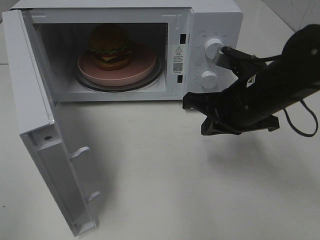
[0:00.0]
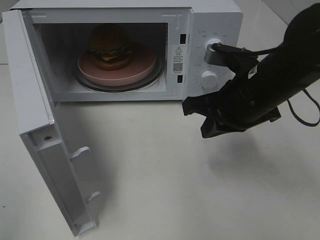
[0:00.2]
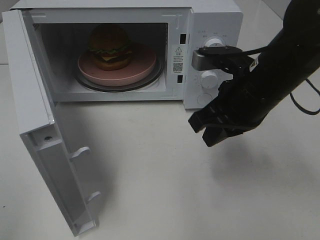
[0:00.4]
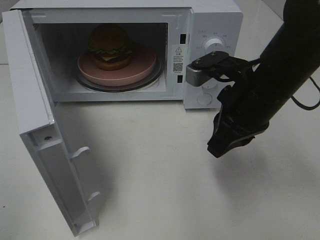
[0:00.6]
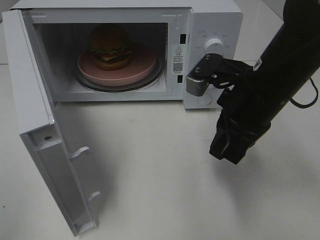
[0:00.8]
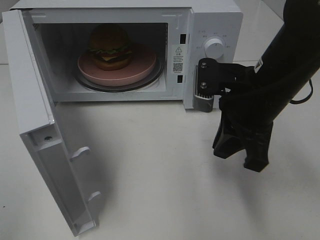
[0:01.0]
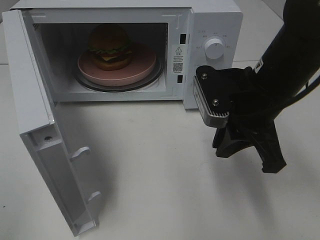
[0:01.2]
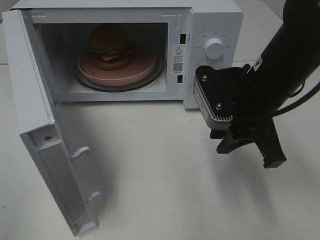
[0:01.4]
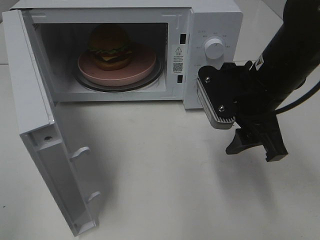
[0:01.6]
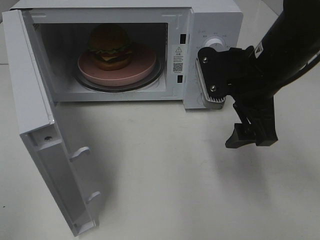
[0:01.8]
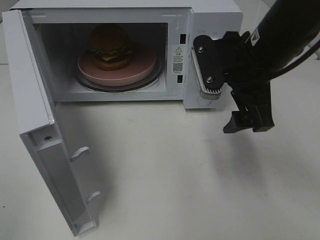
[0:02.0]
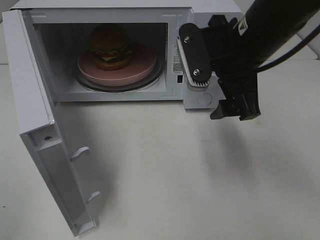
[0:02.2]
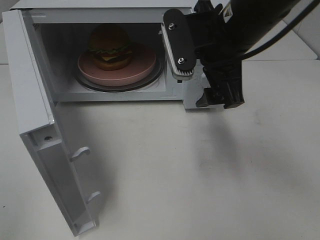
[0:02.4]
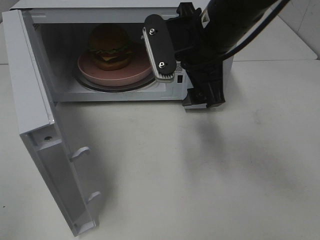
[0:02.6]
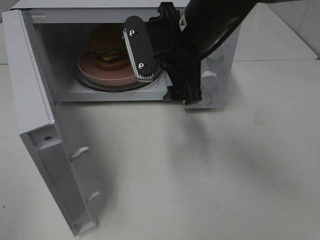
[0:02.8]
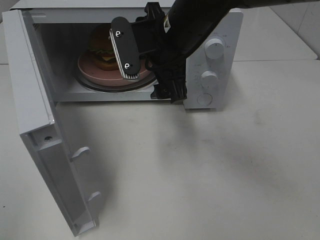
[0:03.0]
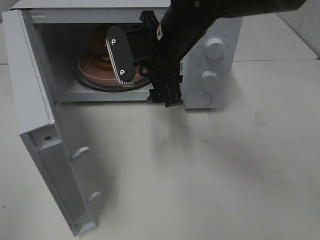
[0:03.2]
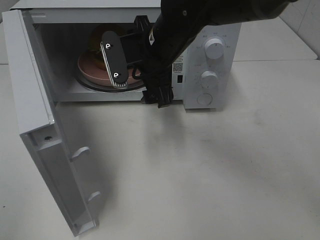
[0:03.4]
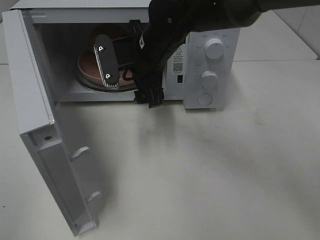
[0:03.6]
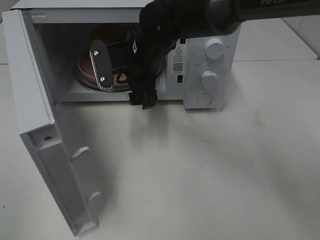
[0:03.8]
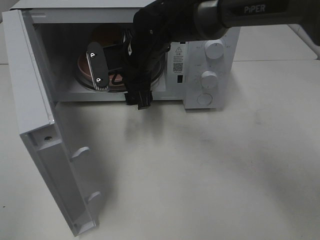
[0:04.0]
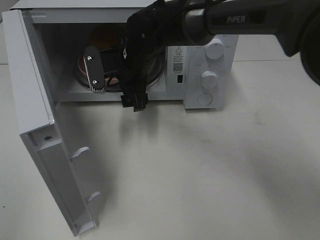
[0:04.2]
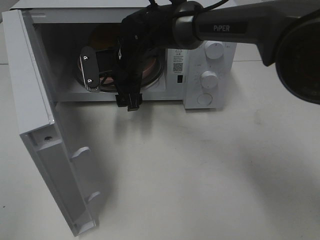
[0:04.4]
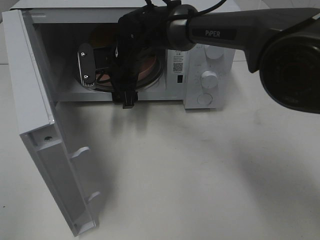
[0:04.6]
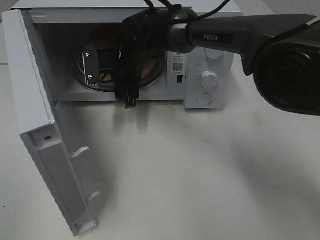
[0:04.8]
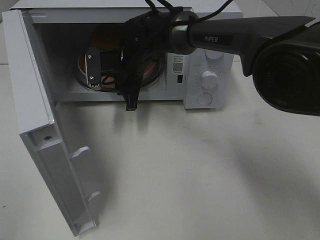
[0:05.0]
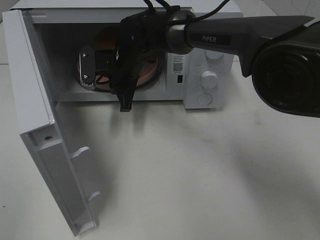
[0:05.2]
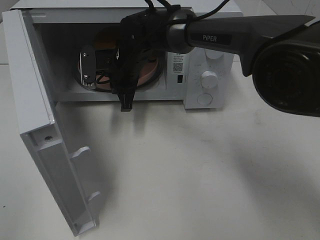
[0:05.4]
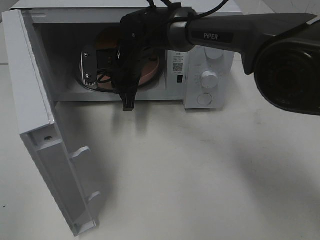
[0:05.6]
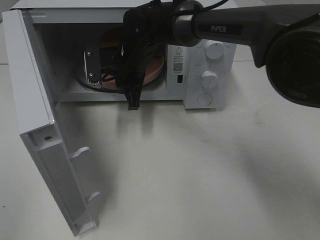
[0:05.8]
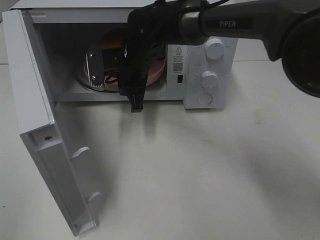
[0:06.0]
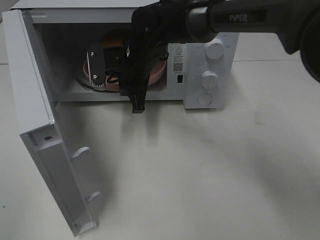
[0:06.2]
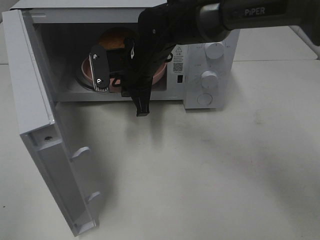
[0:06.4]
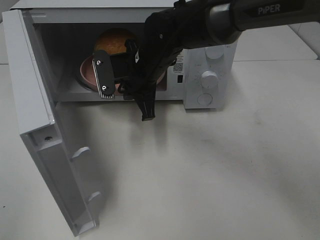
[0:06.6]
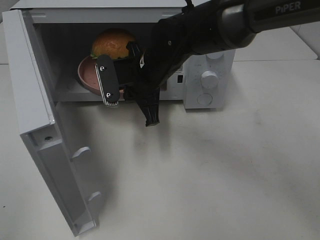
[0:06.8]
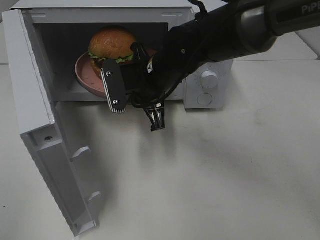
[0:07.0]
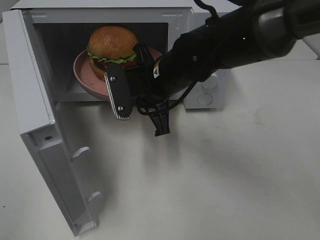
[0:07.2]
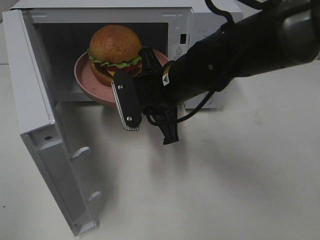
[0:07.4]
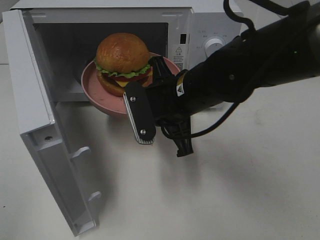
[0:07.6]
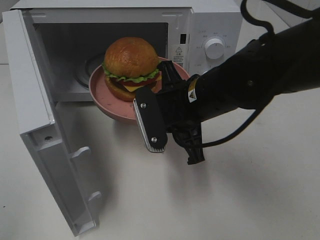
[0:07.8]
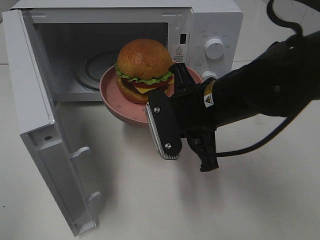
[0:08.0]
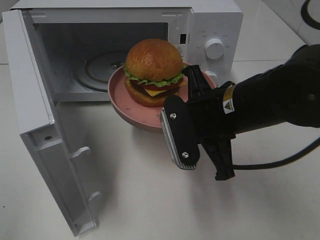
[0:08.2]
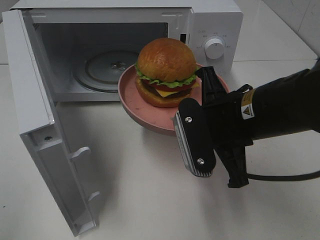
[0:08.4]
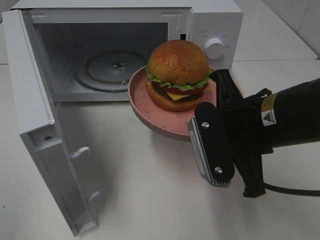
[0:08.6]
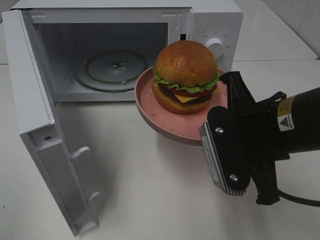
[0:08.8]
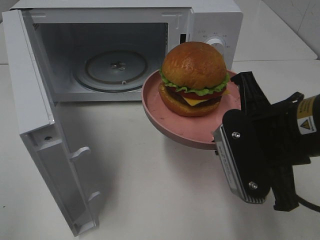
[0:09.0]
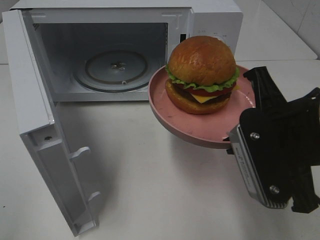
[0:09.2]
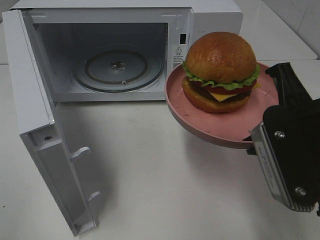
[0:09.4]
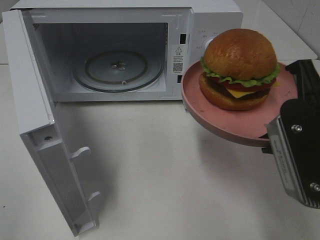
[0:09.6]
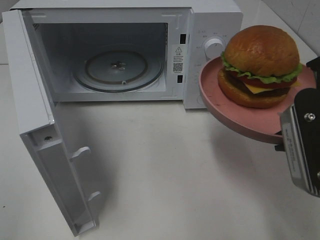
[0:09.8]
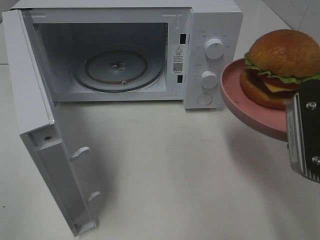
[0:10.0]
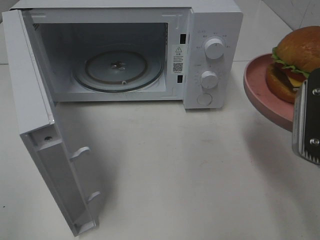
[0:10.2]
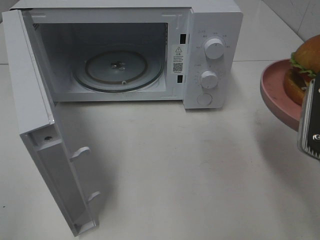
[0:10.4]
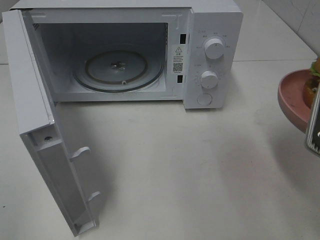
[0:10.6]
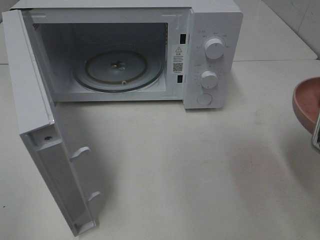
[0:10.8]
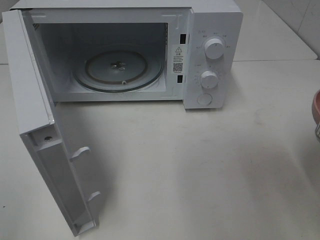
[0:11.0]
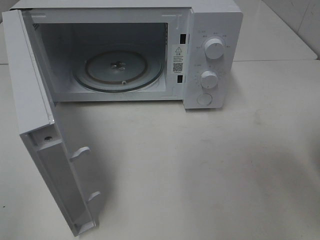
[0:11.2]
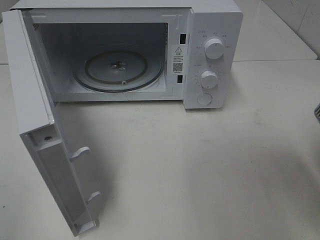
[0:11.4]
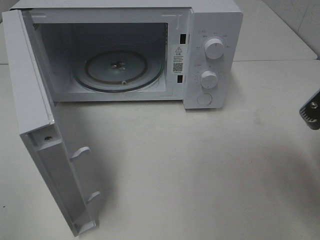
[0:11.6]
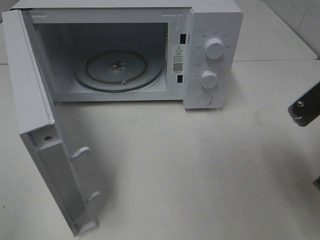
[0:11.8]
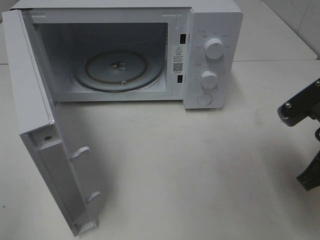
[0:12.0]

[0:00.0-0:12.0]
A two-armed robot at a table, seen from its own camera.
Task of the whole recording: Heat the burger.
Step, 0:00.0 to 0:05.0: Right hand: grab the plate with the hamburger.
0:00.0 to 0:01.6: The right gripper opens.
0:01.6 to 0:03.0: The right gripper goes about 15 cm to the left and forward.
0:03.0 to 0:04.4: The right gripper shifts about 15 cm forward, downward and to the left.
0:04.4 to 0:06.0: The right gripper closes up.
0:06.0 to 0:07.6: The right gripper travels backward and to the right by about 15 cm.
0:07.6 to 0:09.0: The right gripper goes about 15 cm backward and to the right.
0:09.0 to 0:10.4: The right gripper travels to the right by roughly 5 cm.
0:10.4 to 0:12.0: The right gripper is displaced downward by some 5 cm.

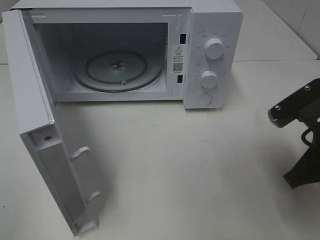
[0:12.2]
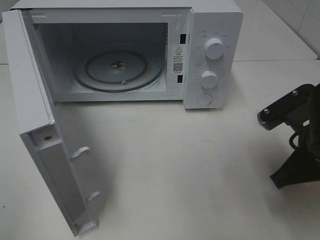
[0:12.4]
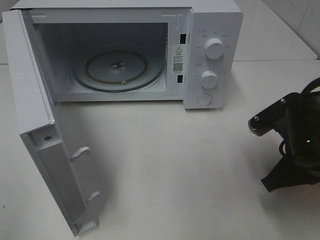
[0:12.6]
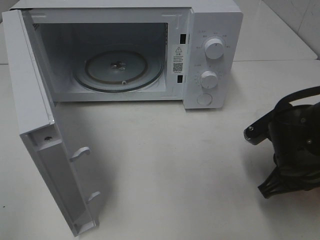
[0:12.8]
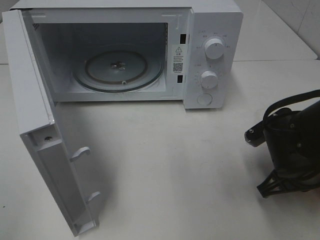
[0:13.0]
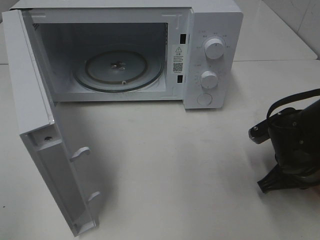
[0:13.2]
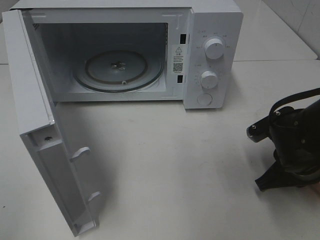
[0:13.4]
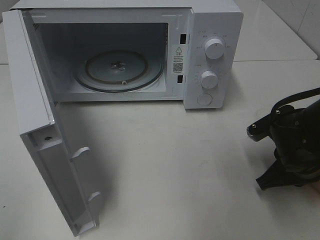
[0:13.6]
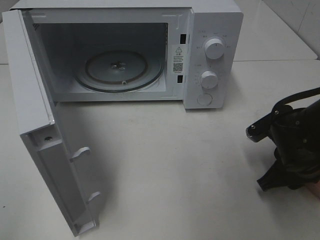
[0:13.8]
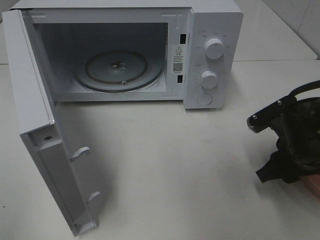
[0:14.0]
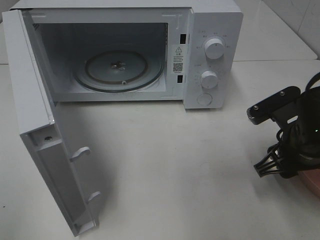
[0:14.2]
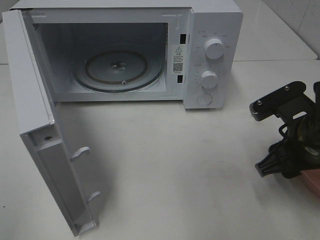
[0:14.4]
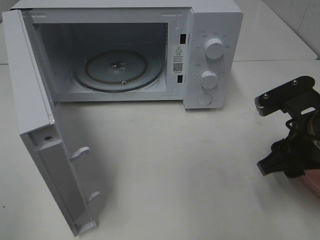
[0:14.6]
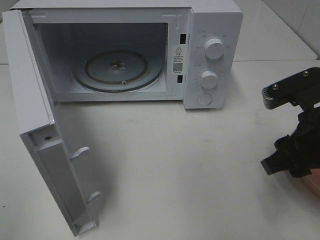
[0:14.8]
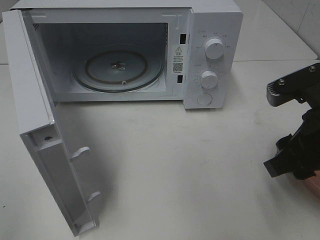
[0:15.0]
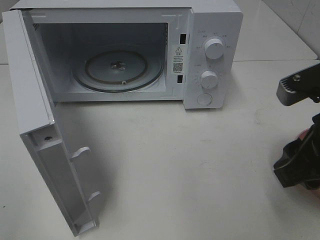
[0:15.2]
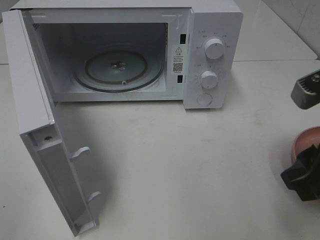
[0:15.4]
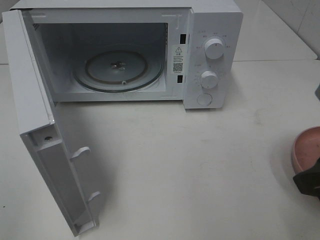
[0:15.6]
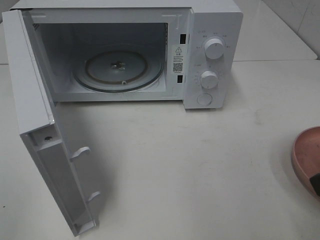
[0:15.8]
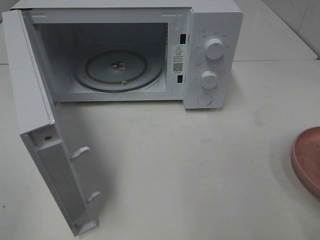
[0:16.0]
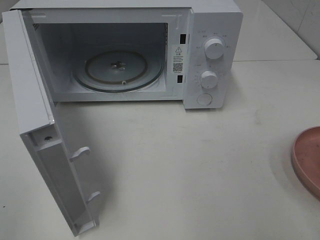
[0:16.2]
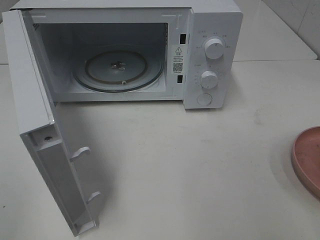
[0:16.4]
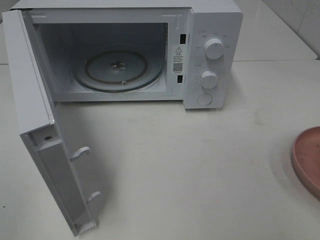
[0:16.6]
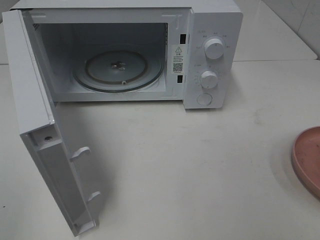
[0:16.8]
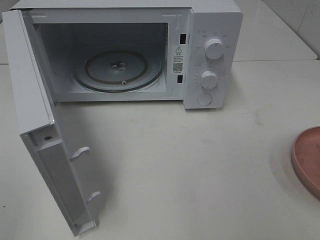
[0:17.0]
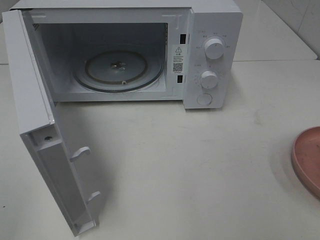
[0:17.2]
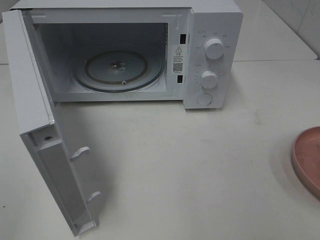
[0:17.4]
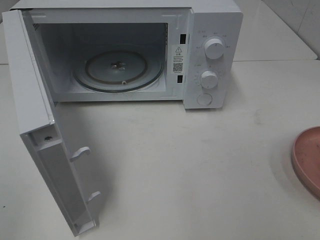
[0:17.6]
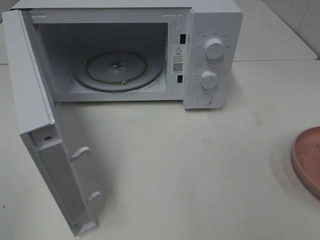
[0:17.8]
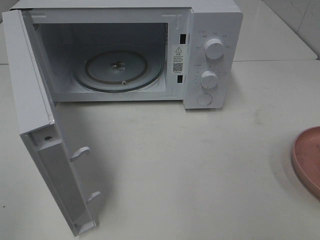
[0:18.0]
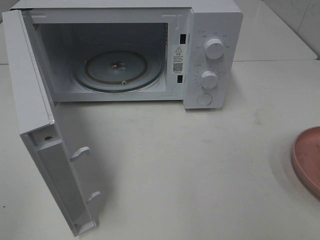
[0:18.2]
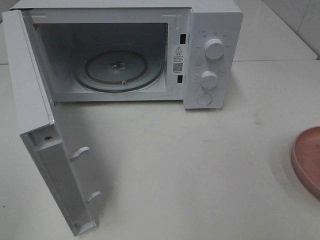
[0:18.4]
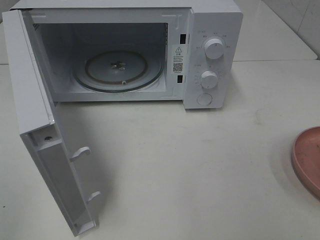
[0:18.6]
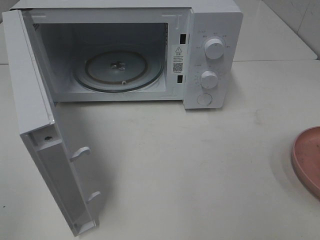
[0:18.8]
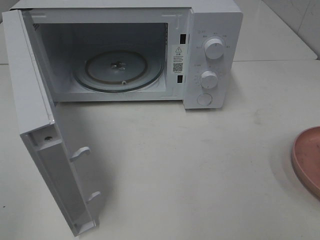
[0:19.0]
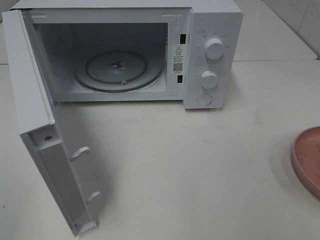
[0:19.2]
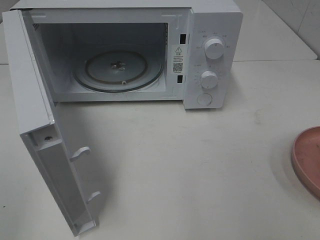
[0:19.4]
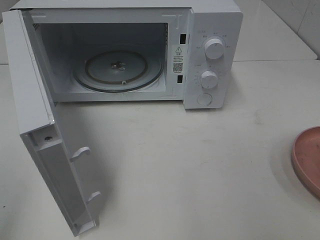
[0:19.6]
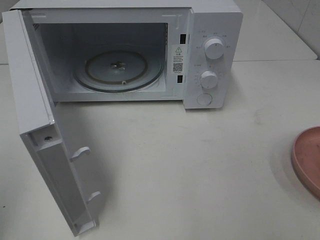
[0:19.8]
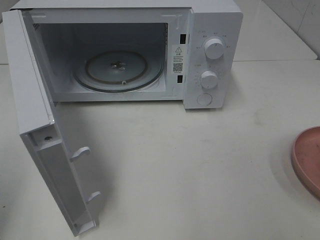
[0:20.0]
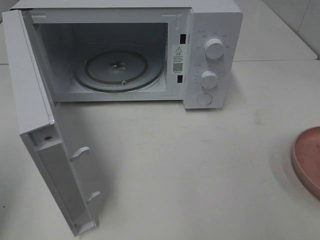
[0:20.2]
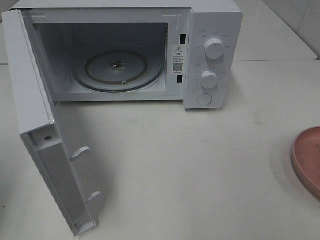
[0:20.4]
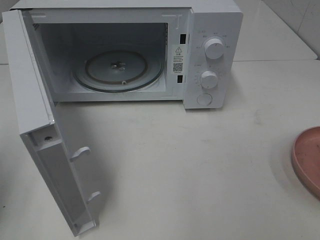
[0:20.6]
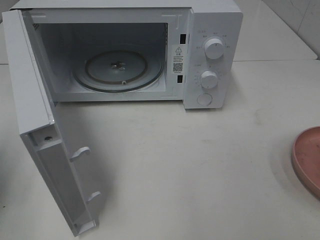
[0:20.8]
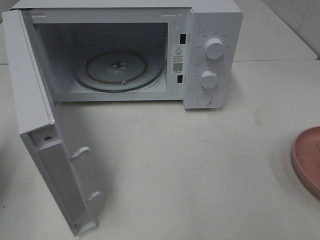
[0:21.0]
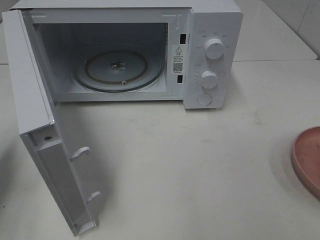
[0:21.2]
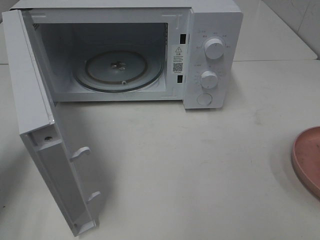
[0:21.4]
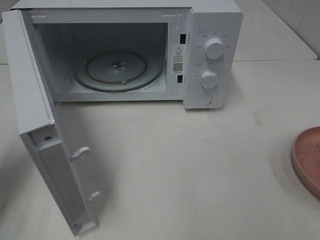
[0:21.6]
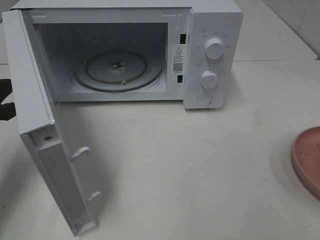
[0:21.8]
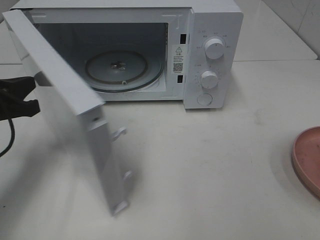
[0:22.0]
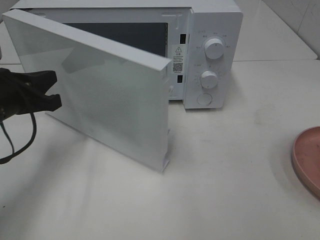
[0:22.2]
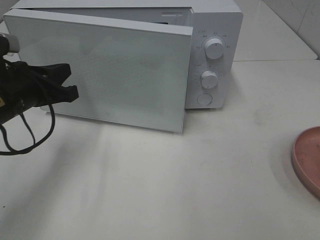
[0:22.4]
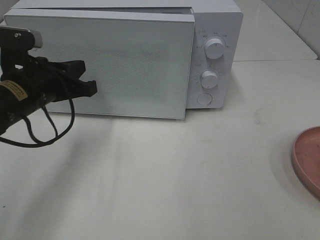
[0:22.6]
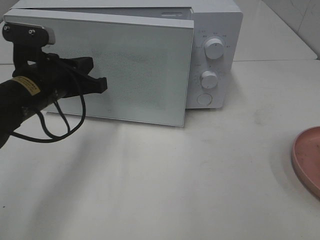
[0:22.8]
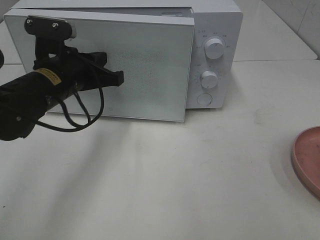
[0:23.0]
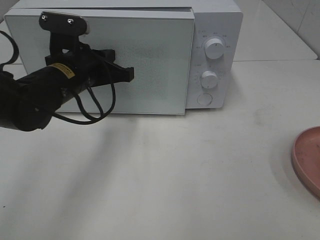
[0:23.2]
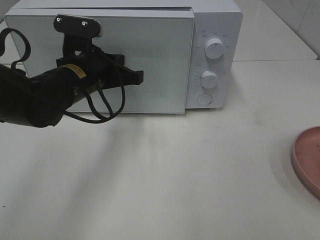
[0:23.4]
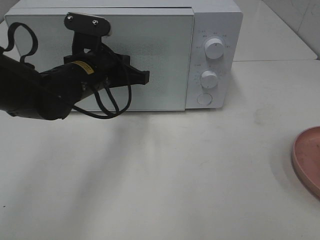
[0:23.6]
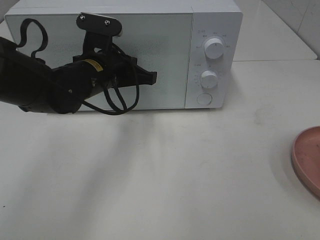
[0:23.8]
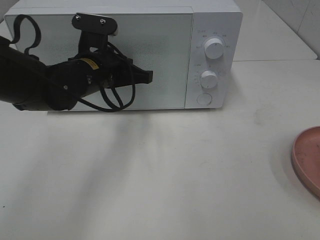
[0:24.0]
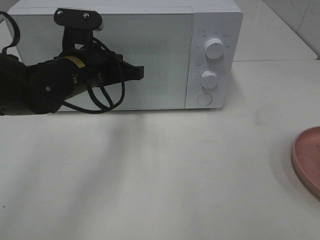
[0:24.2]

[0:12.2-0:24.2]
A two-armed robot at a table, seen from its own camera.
Task of the whole recording: Heat the burger.
0:12.2 to 0:13.8: The right gripper travels downward by some 10 cm, and opens.
0:13.8 to 0:15.2: The right gripper goes roughly 15 cm upward and backward.
0:15.2 to 0:16.6: The right gripper heads backward, to the right and upward, covering approximately 15 cm.
0:19.8 to 0:21.2: The left gripper is displaced forward and downward by some 20 cm.
0:21.2 to 0:22.6: The left gripper goes about 15 cm to the right and forward.
0:22.6 to 0:24.2: The left gripper moves to the right, some 5 cm.
